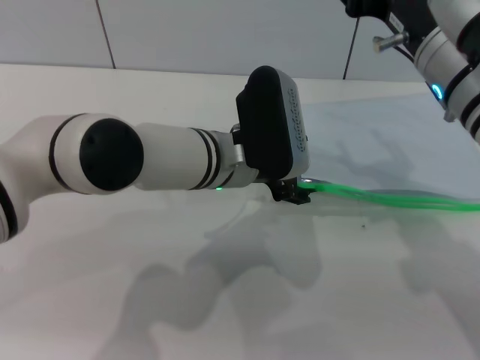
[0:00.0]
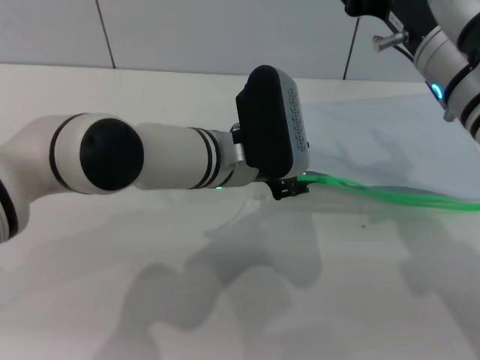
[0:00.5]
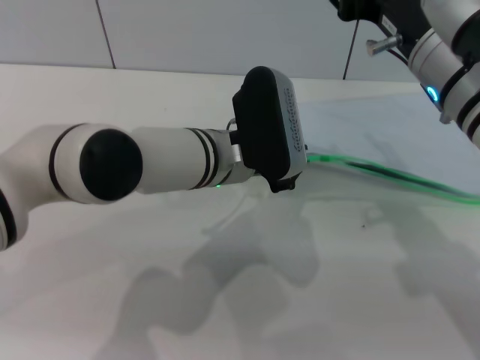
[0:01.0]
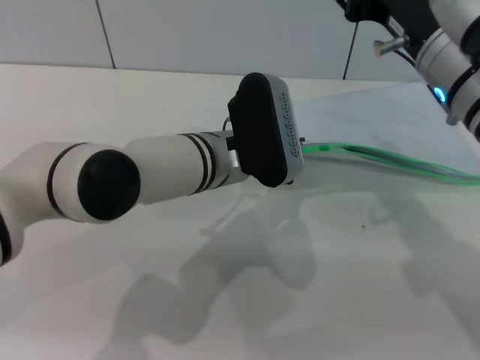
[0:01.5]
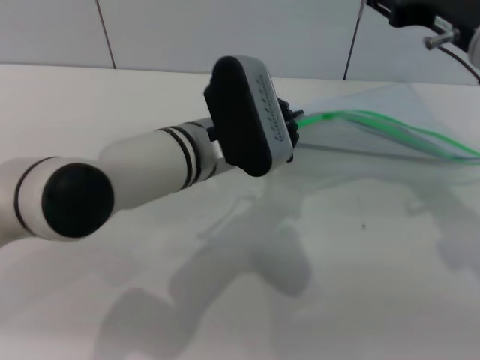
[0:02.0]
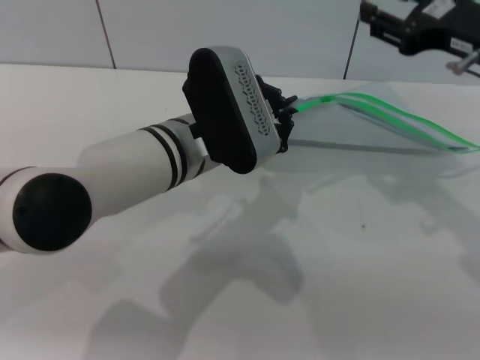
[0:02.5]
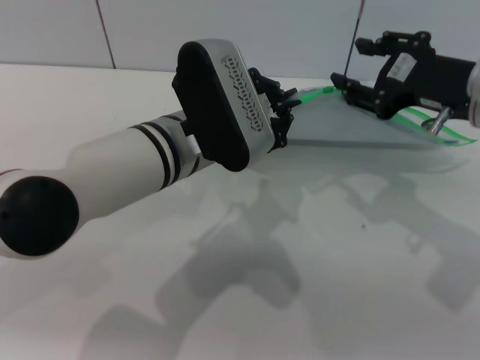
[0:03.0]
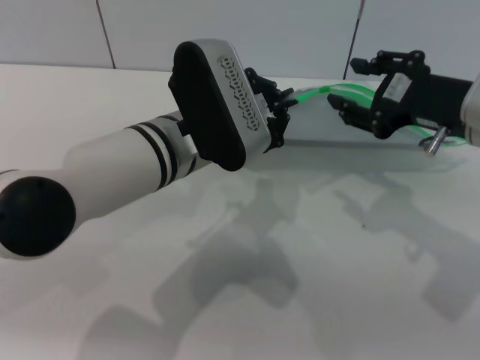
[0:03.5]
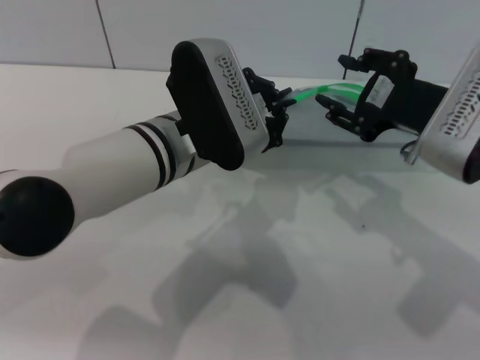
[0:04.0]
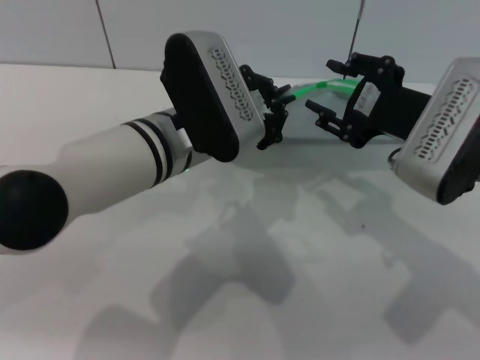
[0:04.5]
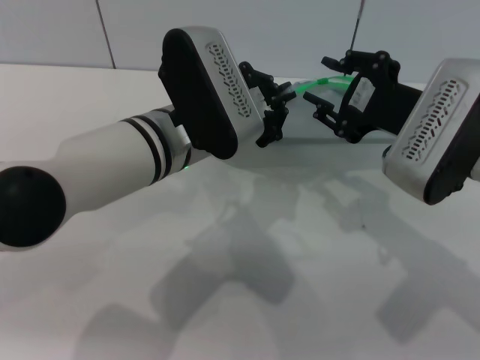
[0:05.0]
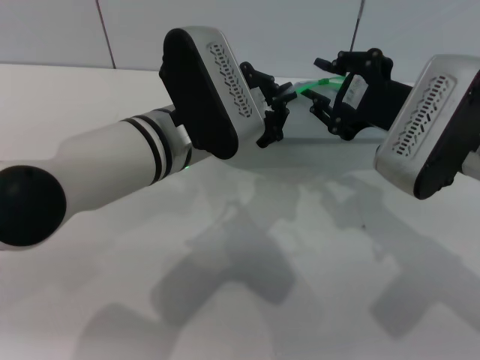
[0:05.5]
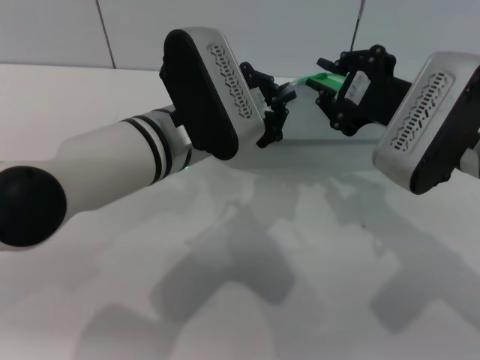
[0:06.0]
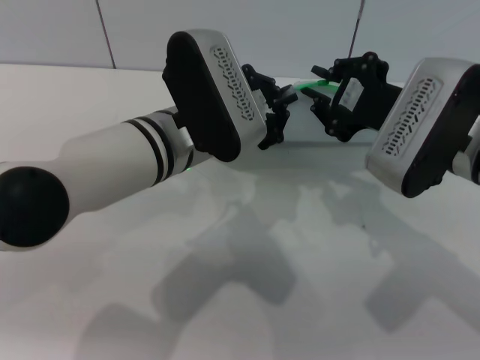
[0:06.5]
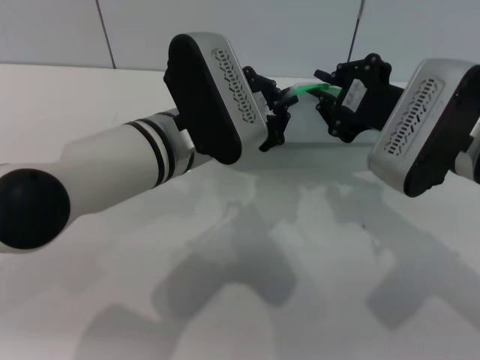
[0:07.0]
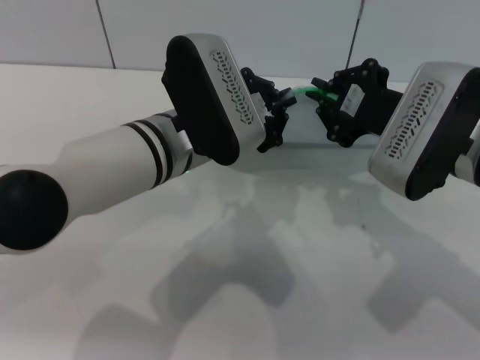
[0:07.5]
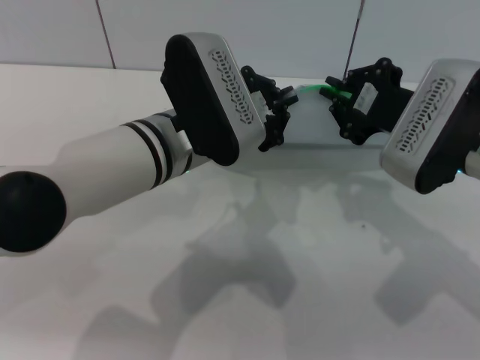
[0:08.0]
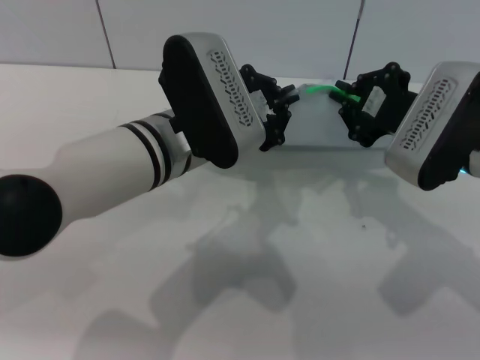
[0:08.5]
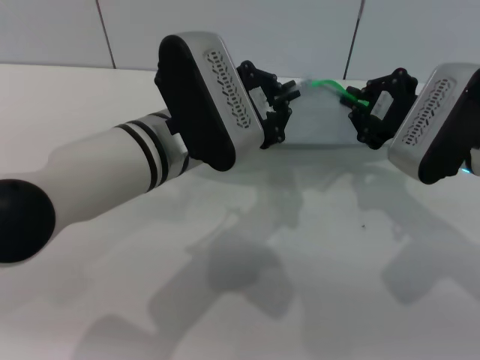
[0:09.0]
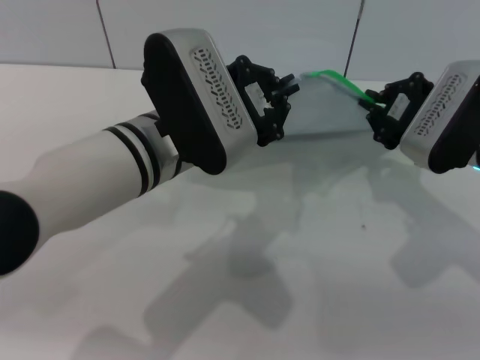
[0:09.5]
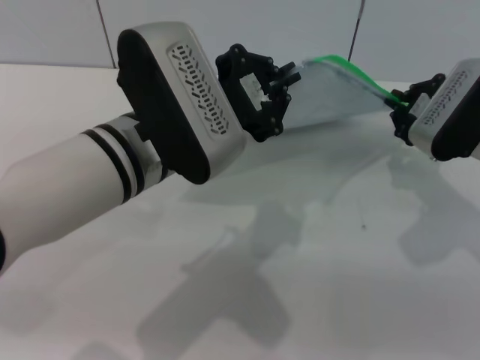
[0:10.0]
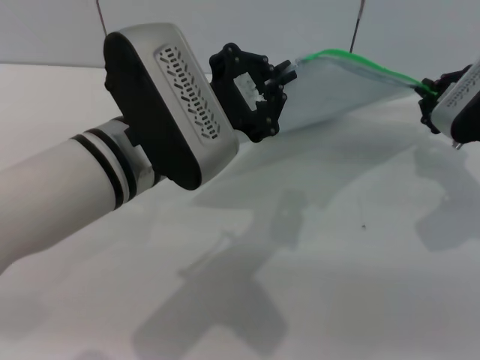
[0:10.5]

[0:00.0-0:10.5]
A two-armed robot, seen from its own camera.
Step, 0:00.0 to 0:03.0: Pick up the transparent plastic bag with the left gripper.
0:00.0 to 0:02.0: The right gripper ends up some 5 cm from where it was, while the left gripper closes its fingers.
0:02.0 to 0:04.0: The right gripper changes place by some 5 cm.
0:04.0 to 0:06.5: The right gripper closes.
0:06.5 to 0:08.5: The grippers stay close to where they were, moving slightly.
0:08.5 to 0:10.5: The right gripper heads to the right and forward, covering about 10 cm. The left gripper moves some 5 cm.

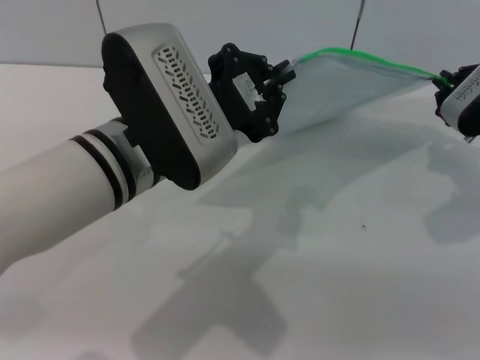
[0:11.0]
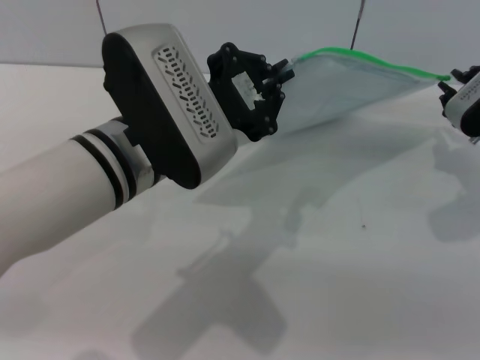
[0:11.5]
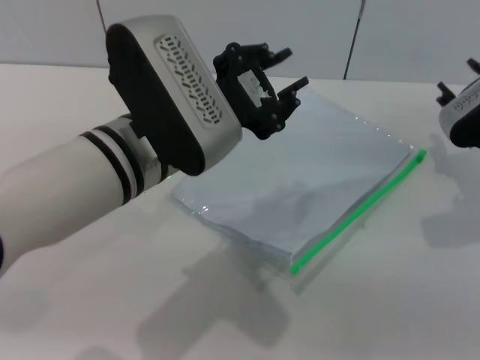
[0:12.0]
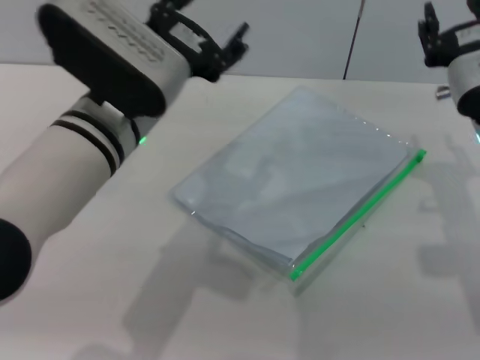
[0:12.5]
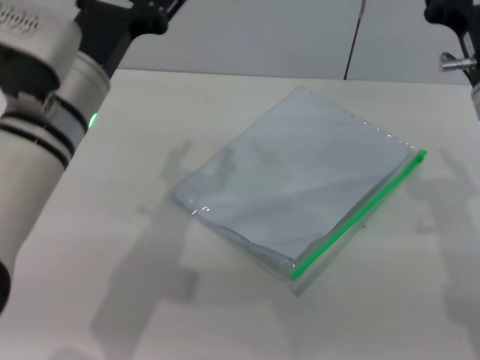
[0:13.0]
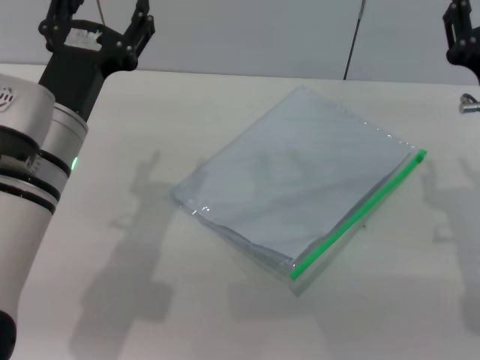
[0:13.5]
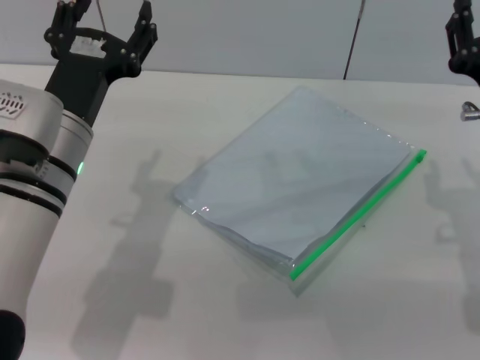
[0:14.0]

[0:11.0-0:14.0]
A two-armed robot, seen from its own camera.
Step, 0:11.5 to 0:12.5: Place the transparent plastic bag.
0:11.0 to 0:12.5: The right gripper moves to the left, roughly 5 cm, and opens its fingers. The left gripper opens up.
0:12.5 to 0:14.0: The left gripper heads to the left, covering approximately 5 cm.

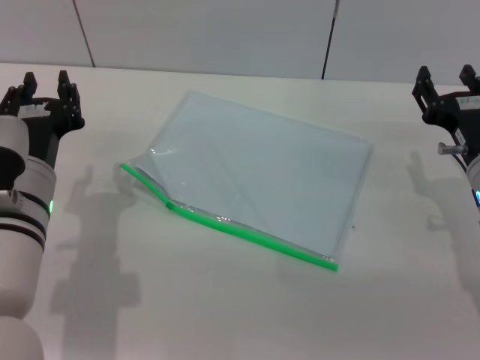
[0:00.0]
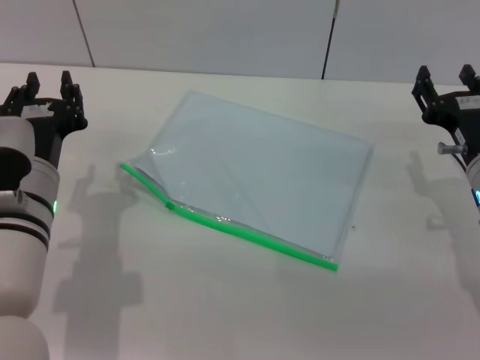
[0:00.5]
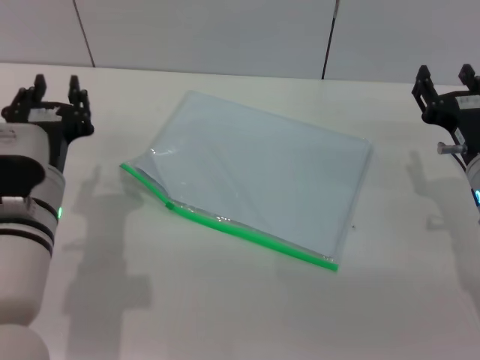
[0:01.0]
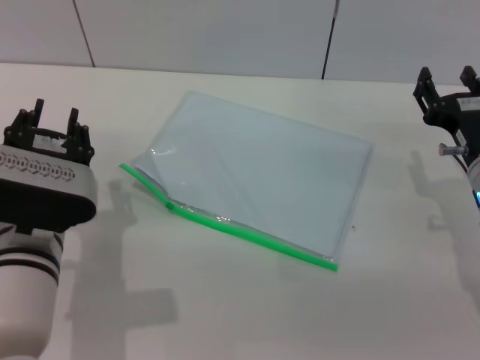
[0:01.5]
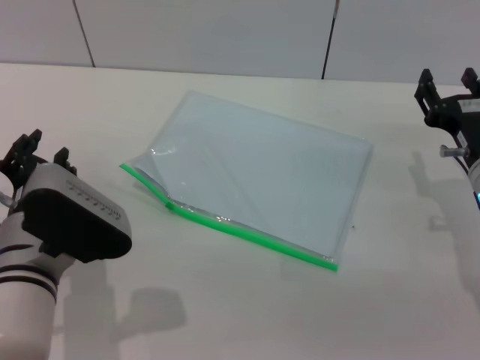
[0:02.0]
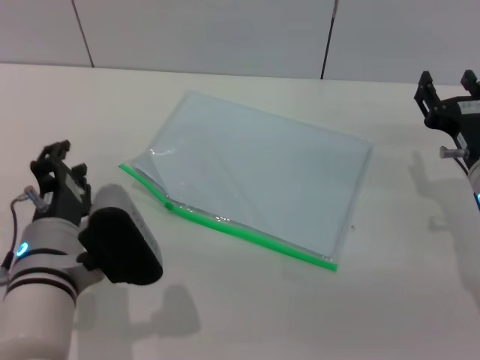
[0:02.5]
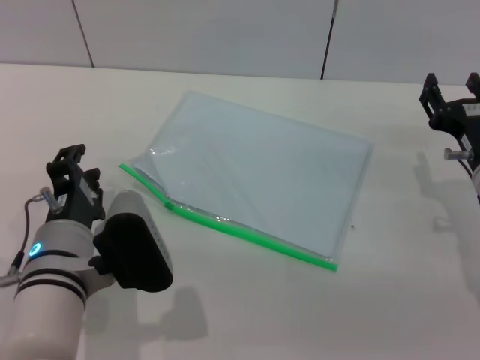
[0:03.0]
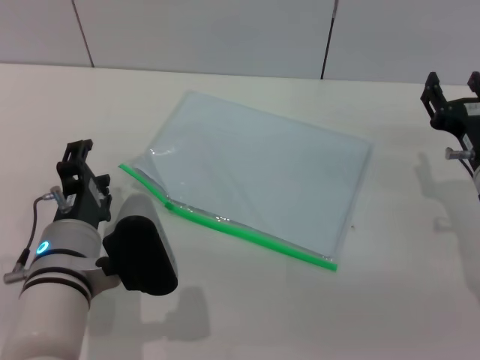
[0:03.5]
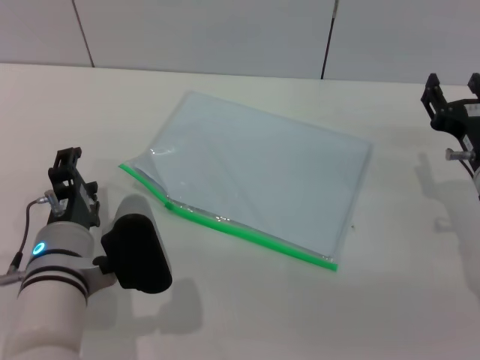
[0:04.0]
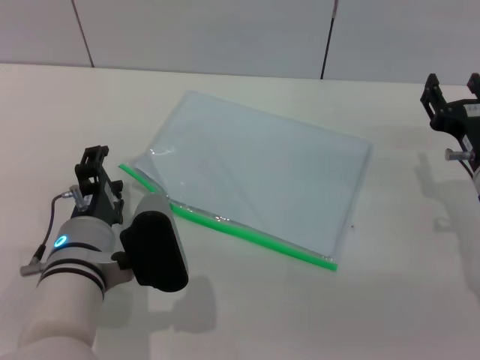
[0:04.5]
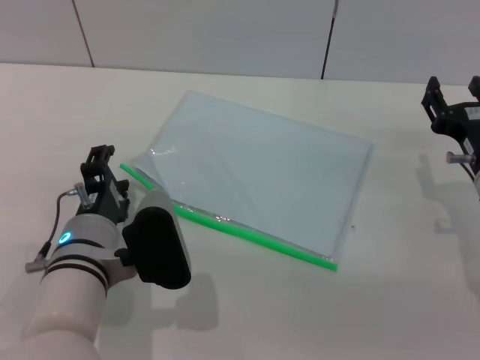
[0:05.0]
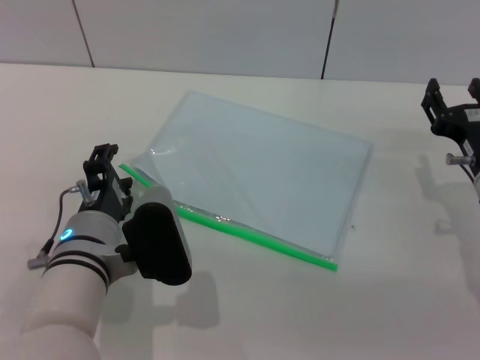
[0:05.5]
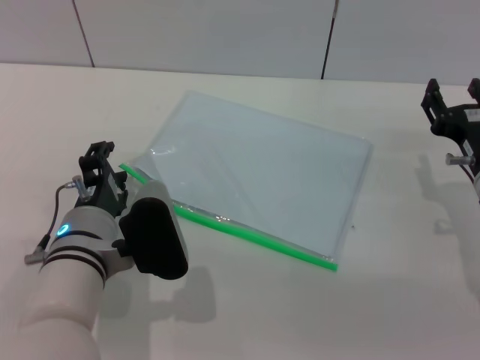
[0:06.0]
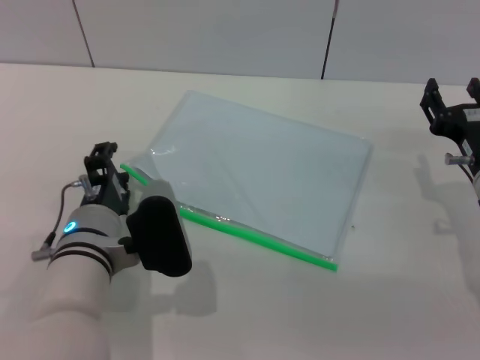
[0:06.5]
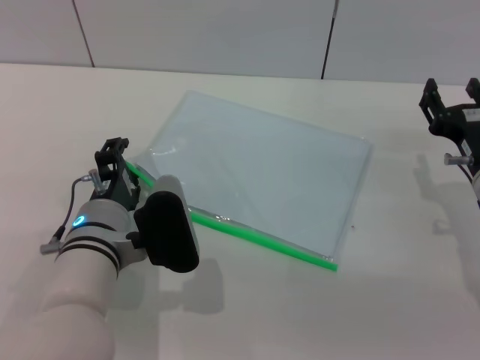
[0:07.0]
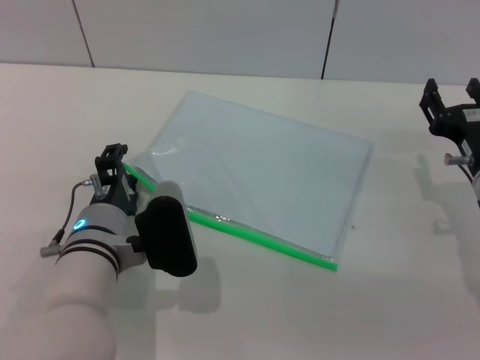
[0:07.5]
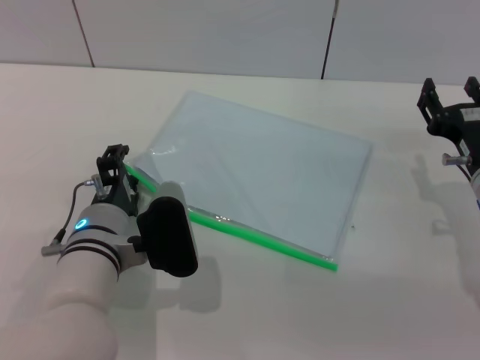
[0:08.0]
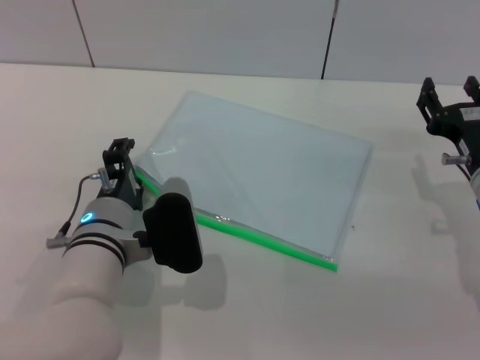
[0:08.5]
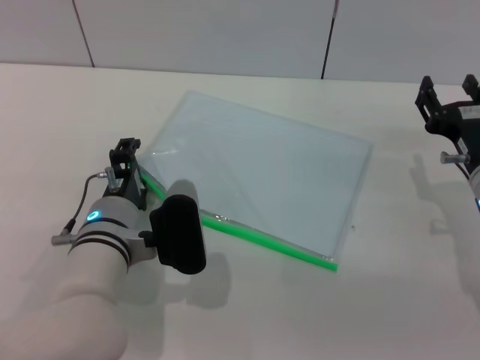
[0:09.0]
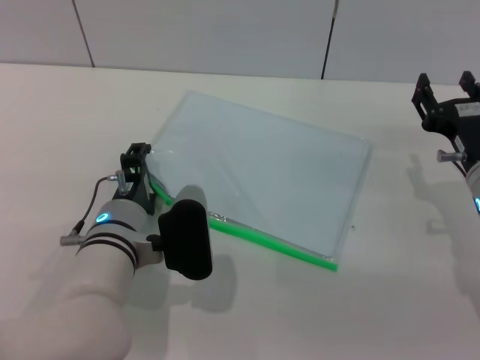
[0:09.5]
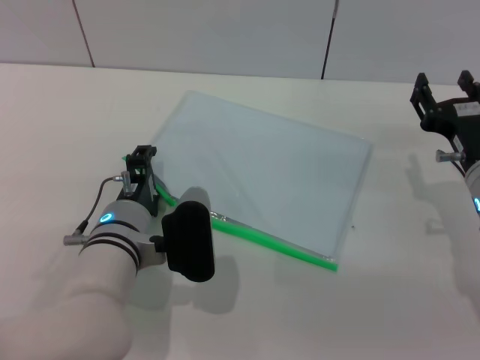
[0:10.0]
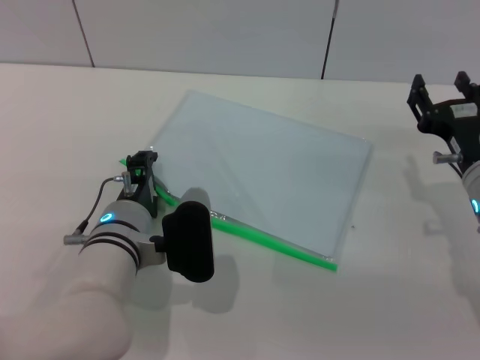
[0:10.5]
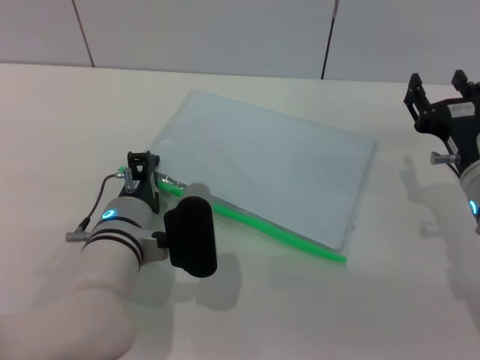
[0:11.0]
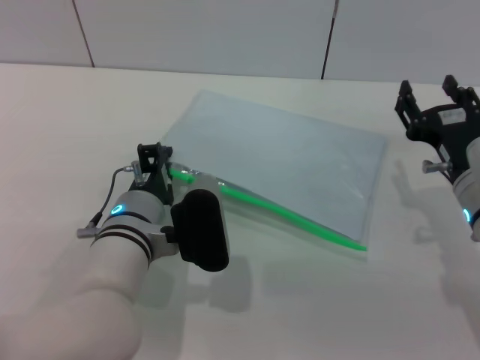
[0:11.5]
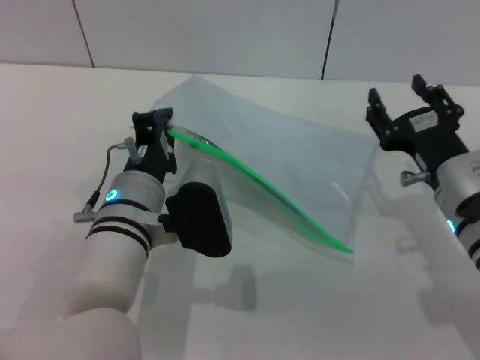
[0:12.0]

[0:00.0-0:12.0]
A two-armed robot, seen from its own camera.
Step, 0:00.0 to 0:12.0: Pick up the transparent plastic bag with the left gripper.
0:04.0 to 0:10.0: There are only small adjustments of the grippers.
0:10.0 to 0:12.0: The left gripper closes up.
